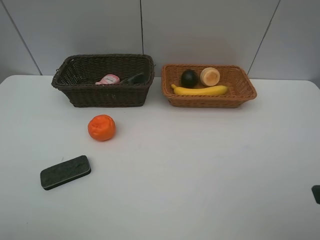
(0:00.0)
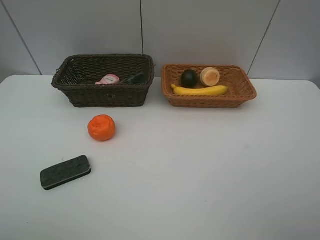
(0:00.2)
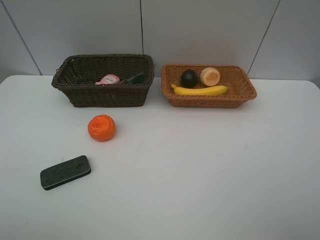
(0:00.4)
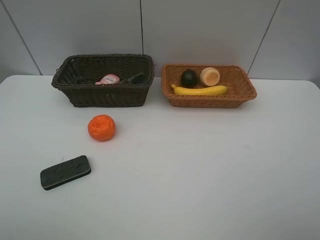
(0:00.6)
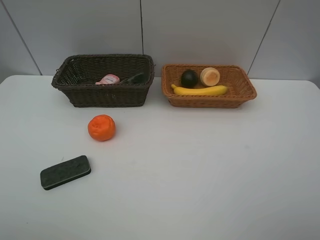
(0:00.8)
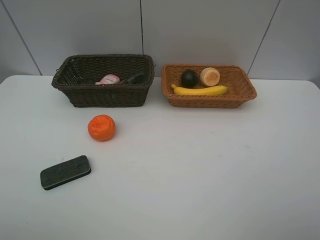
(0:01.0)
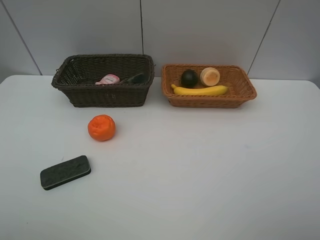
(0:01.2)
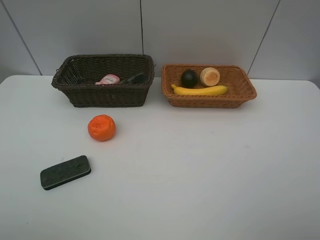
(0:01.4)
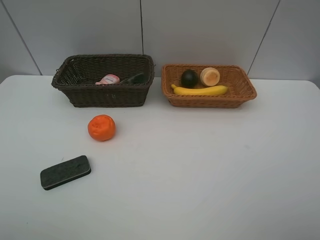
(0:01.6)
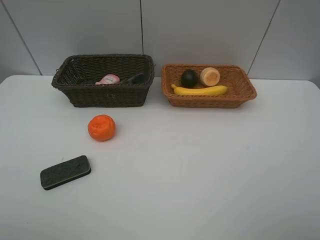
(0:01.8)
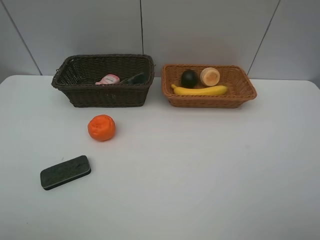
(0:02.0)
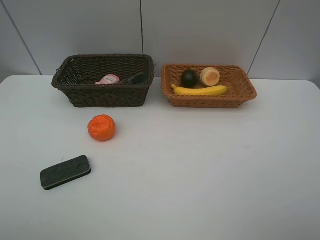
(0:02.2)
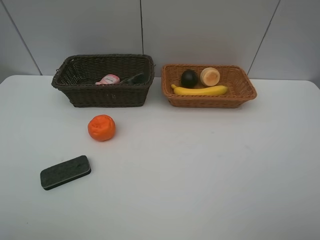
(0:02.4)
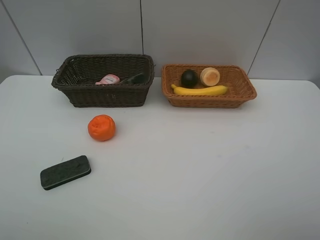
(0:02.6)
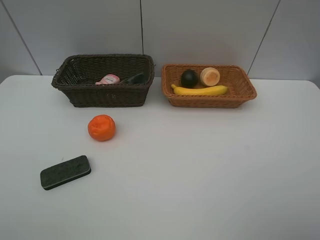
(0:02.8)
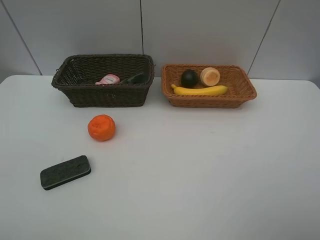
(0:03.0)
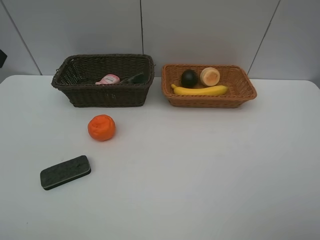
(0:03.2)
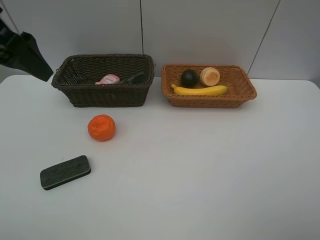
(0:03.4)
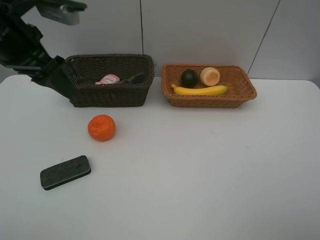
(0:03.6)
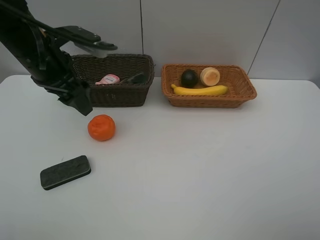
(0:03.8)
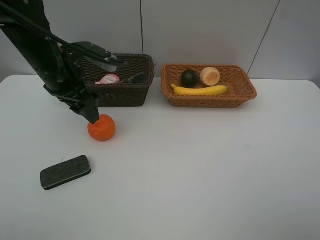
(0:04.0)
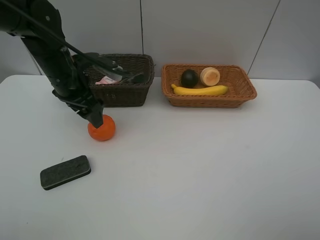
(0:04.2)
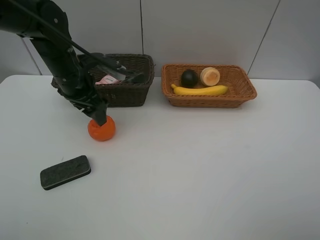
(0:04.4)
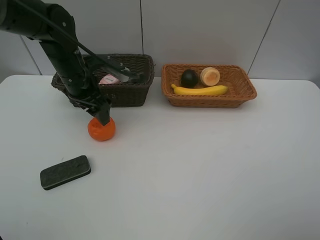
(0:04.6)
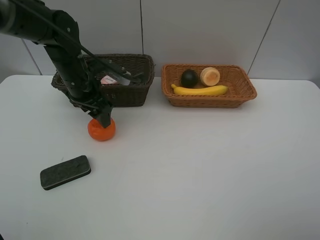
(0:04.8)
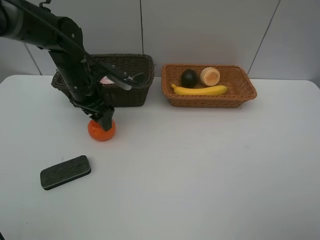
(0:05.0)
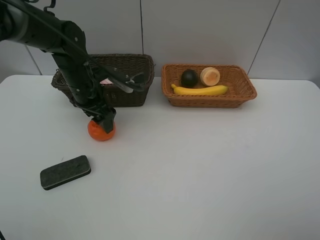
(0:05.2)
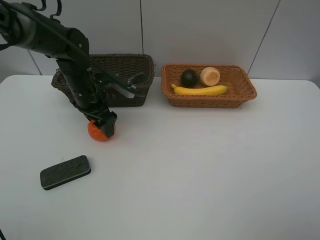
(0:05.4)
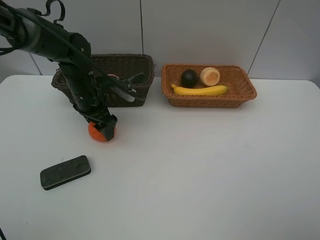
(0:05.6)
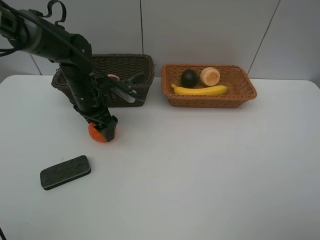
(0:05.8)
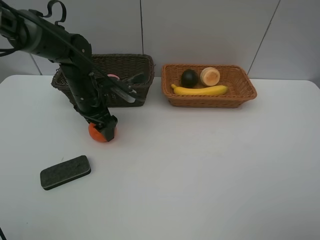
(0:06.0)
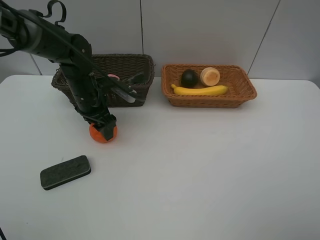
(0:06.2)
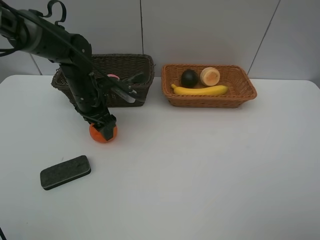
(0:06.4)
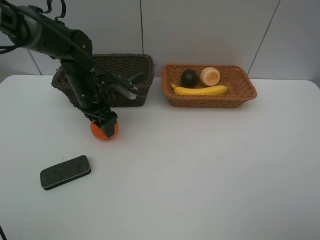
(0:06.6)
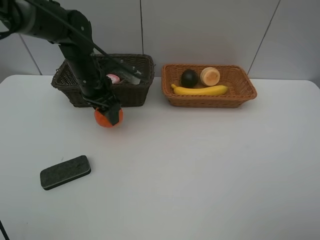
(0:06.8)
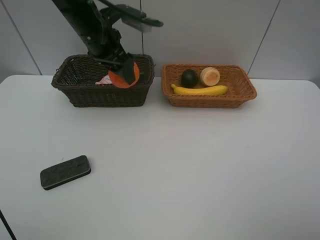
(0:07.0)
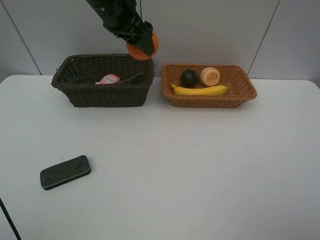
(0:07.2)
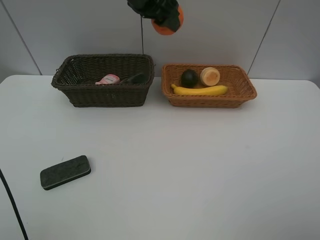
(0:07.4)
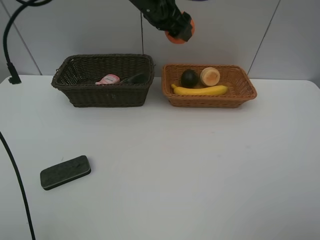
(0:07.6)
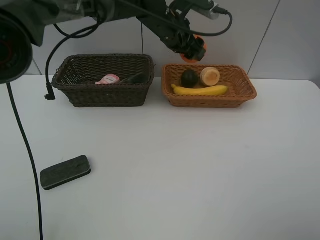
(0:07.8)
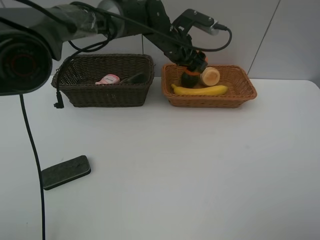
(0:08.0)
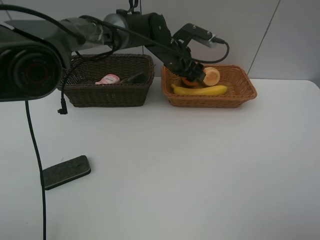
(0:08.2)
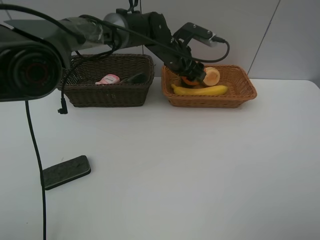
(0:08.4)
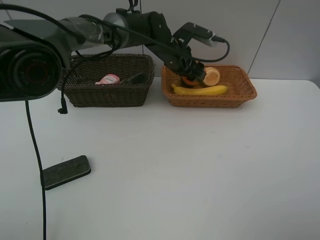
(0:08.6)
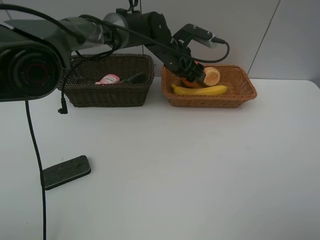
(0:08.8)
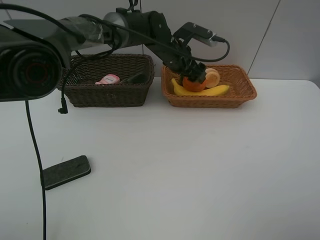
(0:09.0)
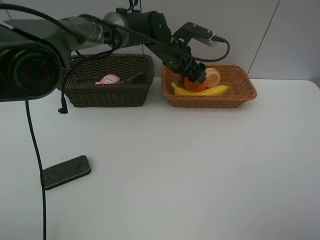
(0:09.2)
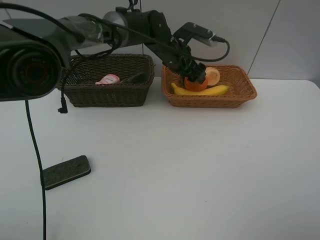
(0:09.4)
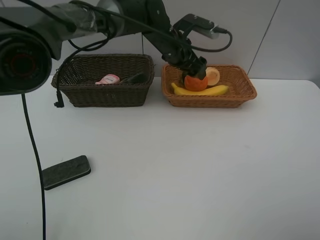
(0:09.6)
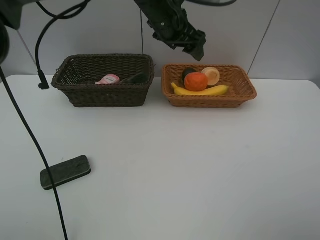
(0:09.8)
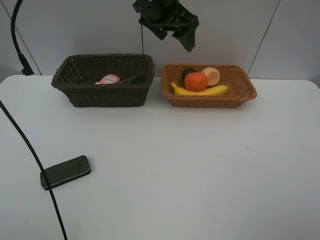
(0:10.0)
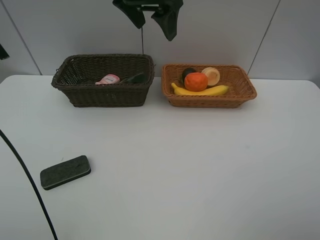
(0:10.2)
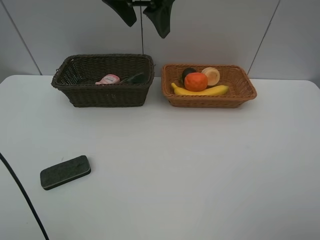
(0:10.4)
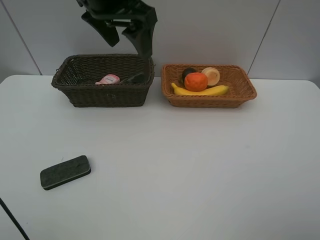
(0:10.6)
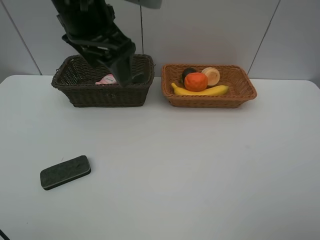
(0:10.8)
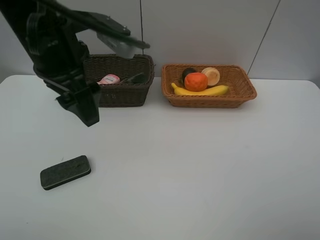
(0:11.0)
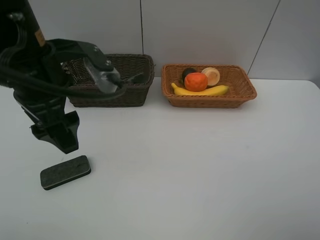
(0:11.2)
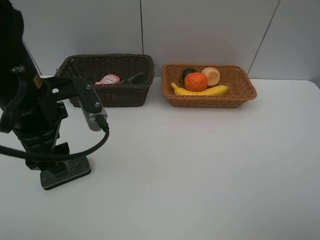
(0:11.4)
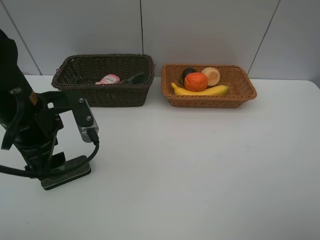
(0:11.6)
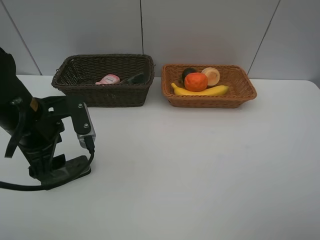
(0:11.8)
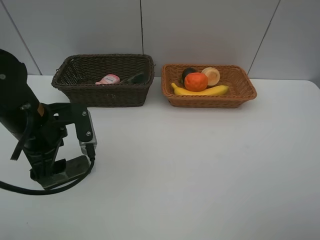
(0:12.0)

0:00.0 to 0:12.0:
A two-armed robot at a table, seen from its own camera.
Task of the whole recording: Place multiple objects separately in different baskets.
Step, 0:00.0 to 0:06.6: Pick up the orange with left gripper.
Step, 0:06.8 to 0:09.6: Place the orange in the light basket with left gripper.
0:03.0 to 0:04.4: The left gripper moves downward, forward and to the right, roughly 30 cm.
0:04.4 to 0:06.0: The left gripper is displaced downward by roughly 5 cm.
0:06.0 to 0:07.6: The left gripper travels upward, to the right and forward by about 25 cm.
0:07.6 to 0:09.0: The left gripper goes some 10 cm downward, and opens its fingers.
0:09.0 to 0:10.4: The left gripper travels upward, backward and to the left by approximately 25 cm.
0:10.4 to 0:12.0: The left gripper moves downward, to the left and backward, some 25 cm.

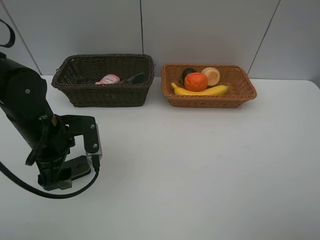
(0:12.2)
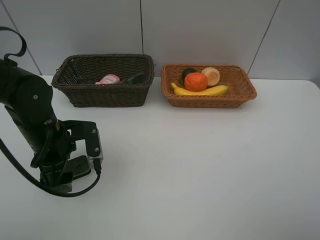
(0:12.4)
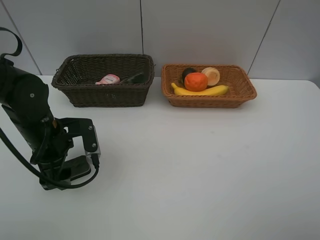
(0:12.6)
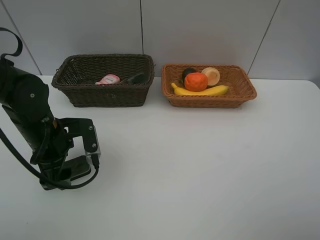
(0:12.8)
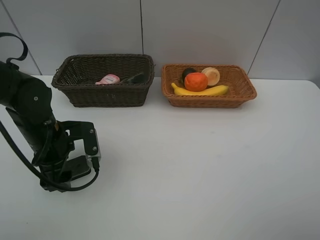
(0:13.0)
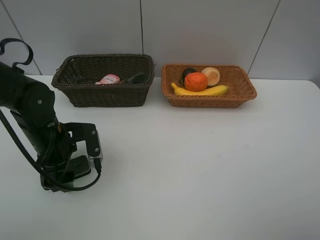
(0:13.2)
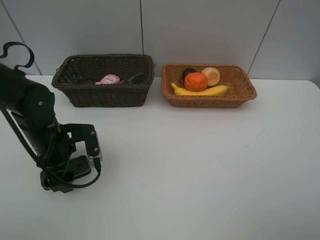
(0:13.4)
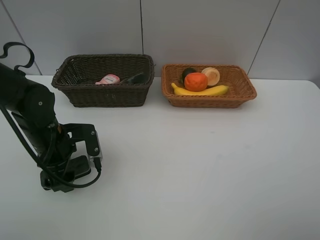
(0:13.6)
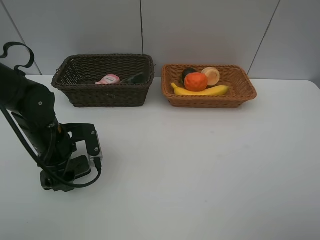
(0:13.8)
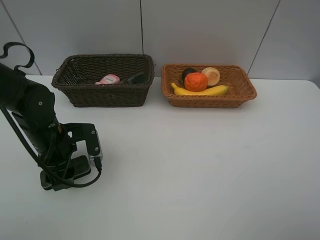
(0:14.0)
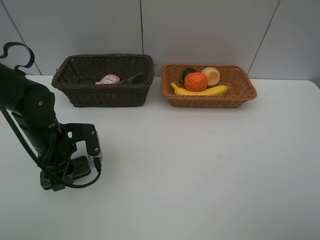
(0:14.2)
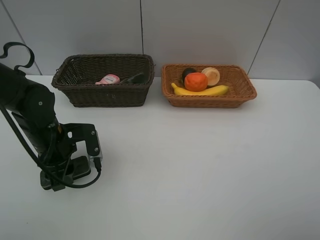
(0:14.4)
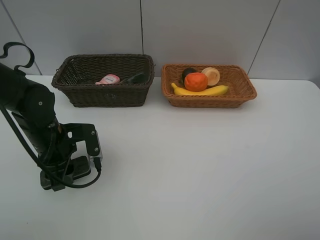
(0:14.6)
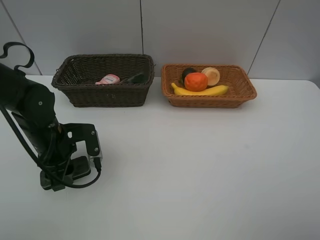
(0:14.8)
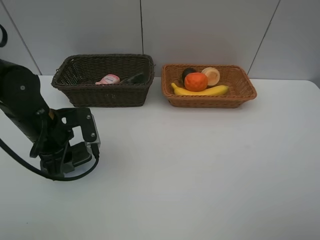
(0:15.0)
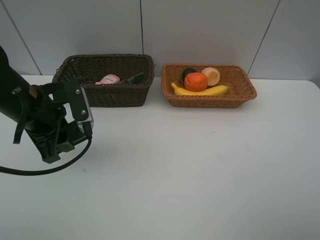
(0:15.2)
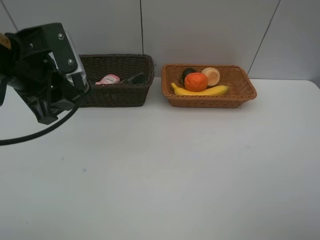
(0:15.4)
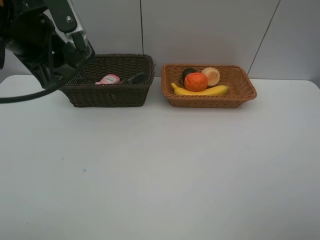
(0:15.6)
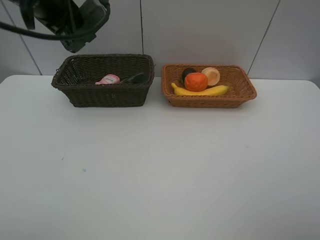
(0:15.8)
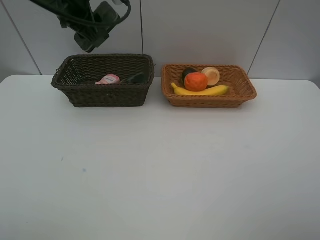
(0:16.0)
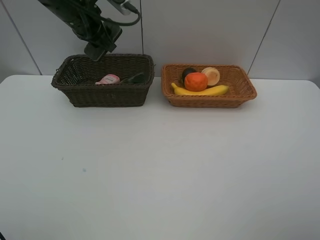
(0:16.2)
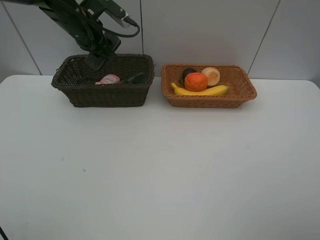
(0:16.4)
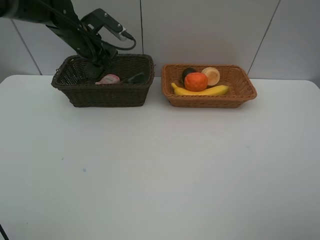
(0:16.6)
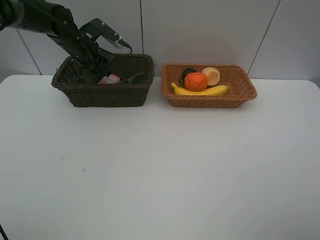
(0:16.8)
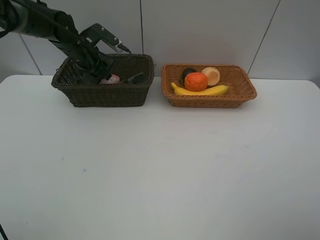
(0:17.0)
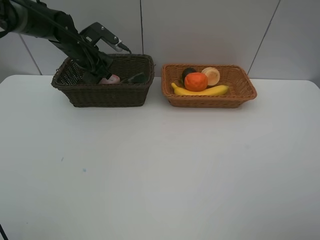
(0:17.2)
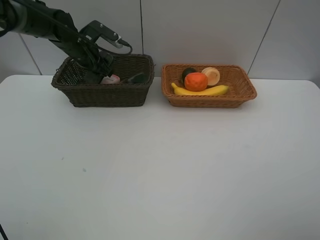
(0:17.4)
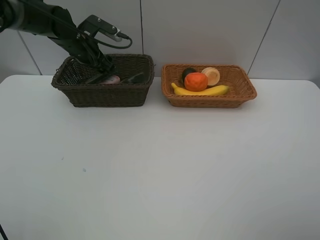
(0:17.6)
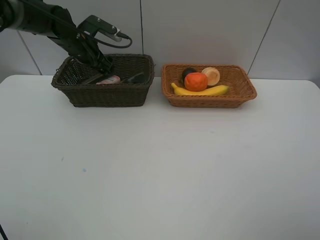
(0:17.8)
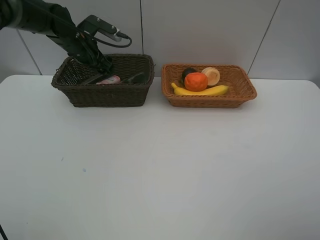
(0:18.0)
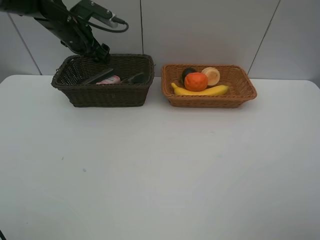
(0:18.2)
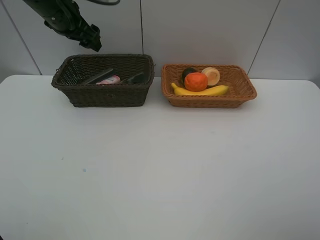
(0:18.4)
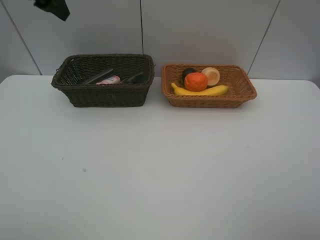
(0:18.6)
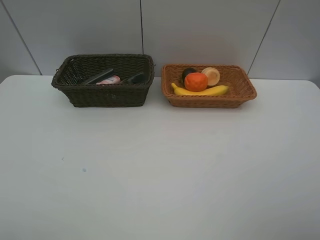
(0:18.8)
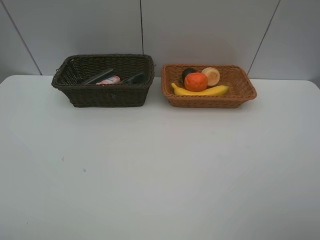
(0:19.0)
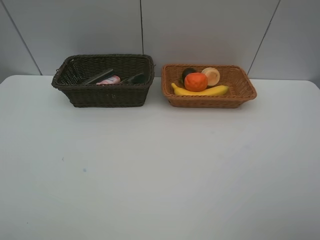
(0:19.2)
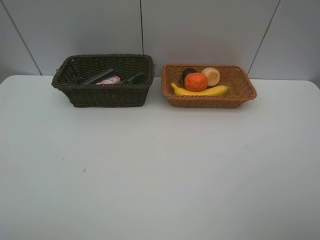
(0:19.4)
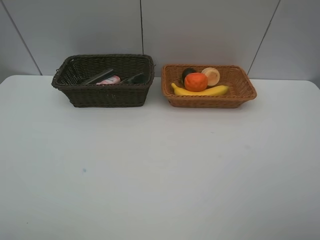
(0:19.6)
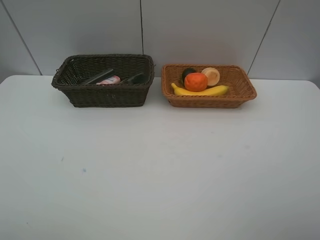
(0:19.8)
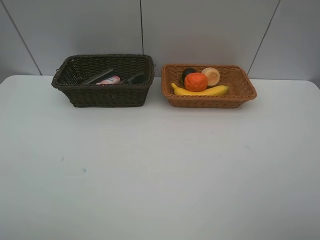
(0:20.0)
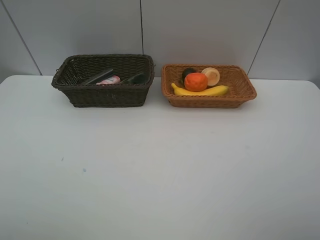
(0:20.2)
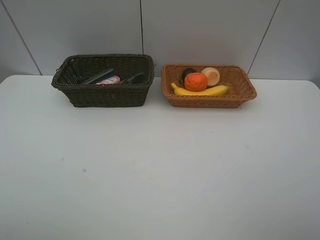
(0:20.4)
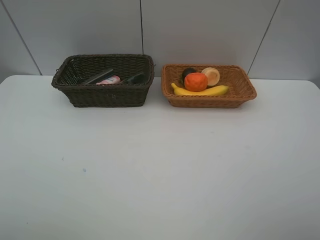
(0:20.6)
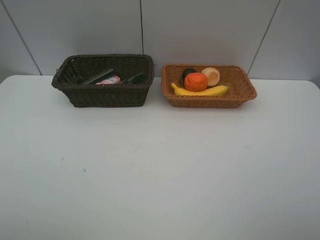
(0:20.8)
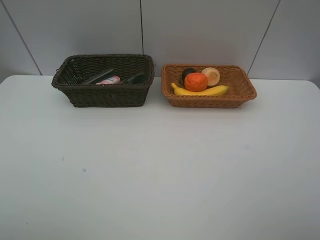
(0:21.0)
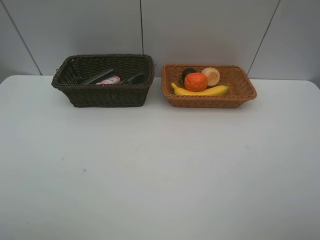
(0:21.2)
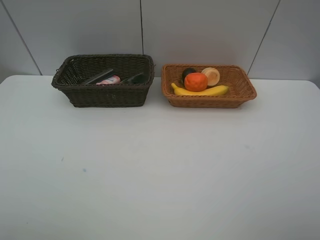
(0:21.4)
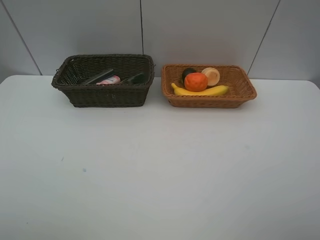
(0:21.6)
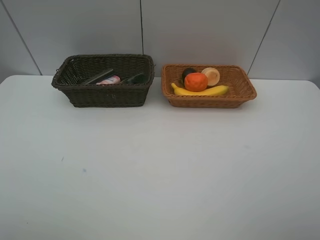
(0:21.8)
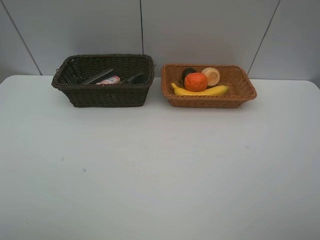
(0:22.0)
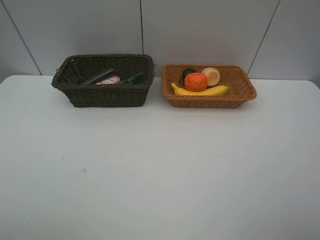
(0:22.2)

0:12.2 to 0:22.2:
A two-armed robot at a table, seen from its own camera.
Task of the whole recording: Place multiple objects separately in different baskets.
Step, 0:12.2 to 0:15.0: Pick up blackboard eraser with left gripper.
Step, 0:15.2 to 0:18.2: Place the blackboard eraser in the dark basket with left gripper.
0:12.2 to 0:13.6: The grippers make only small movements.
0:13.6 to 0:15.0: The left gripper is displaced upward by approximately 5 cm, and closes.
0:15.0 to 0:16.4: The left gripper goes approximately 20 cm forward and upward.
0:16.4 to 0:18.0: The left gripper moves some 5 cm, and opens its fingers.
0:18.0 to 0:19.4: The left gripper is displaced backward and upward by approximately 60 cm.
0:20.8 to 0:22.2: Neither gripper changes place.
